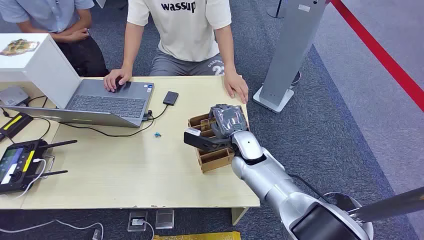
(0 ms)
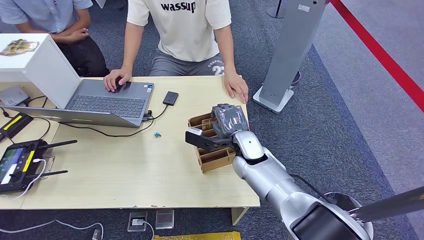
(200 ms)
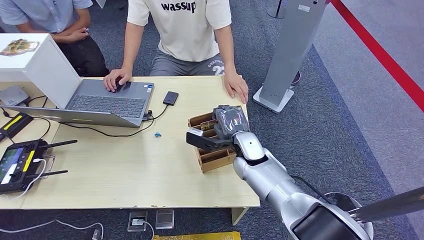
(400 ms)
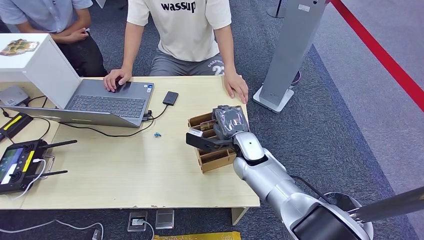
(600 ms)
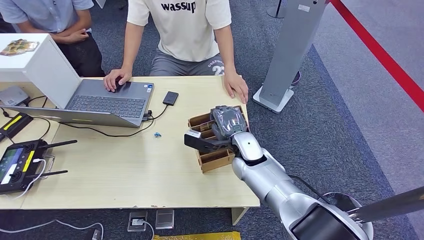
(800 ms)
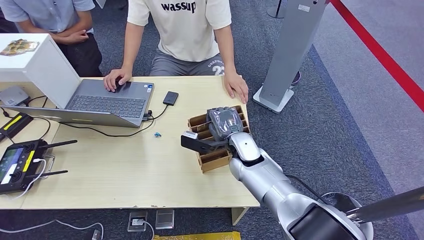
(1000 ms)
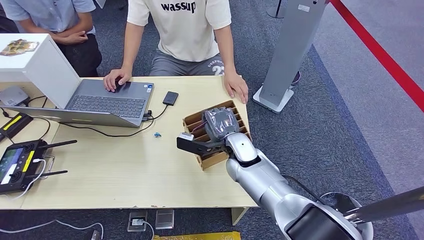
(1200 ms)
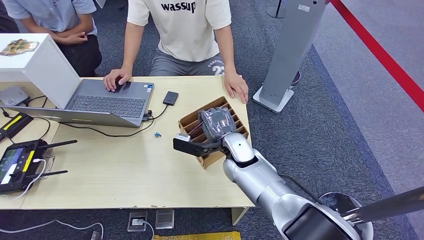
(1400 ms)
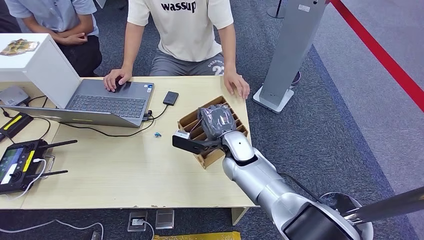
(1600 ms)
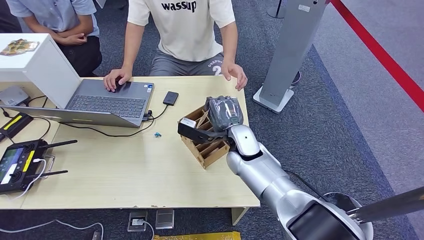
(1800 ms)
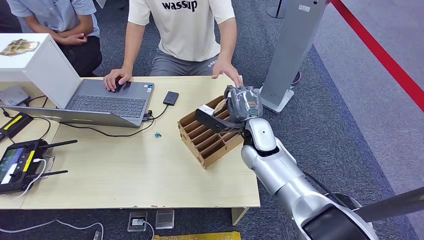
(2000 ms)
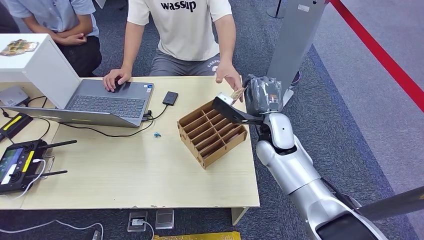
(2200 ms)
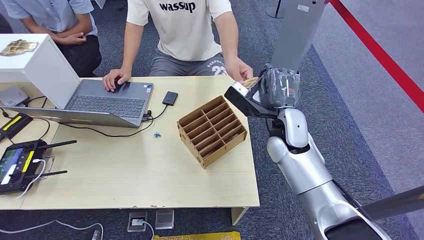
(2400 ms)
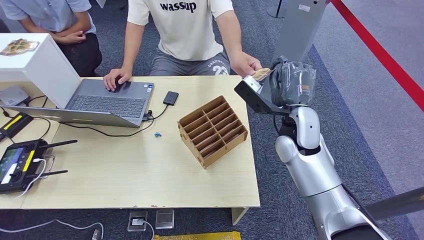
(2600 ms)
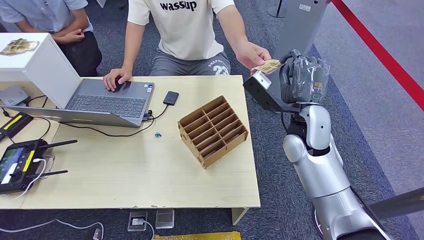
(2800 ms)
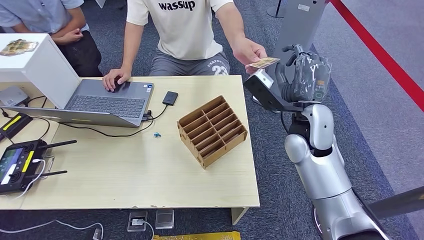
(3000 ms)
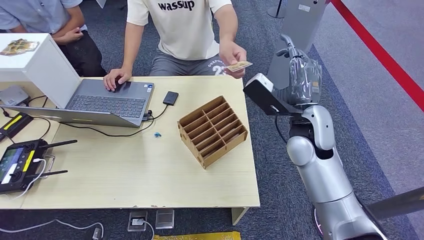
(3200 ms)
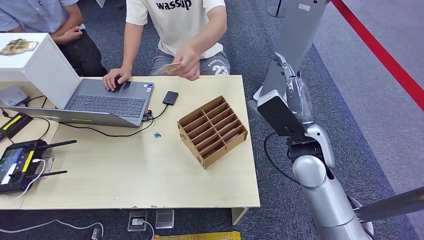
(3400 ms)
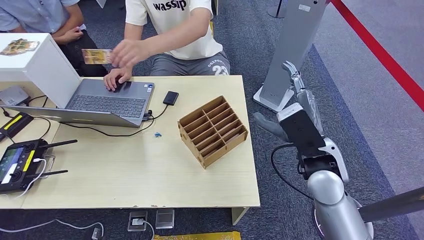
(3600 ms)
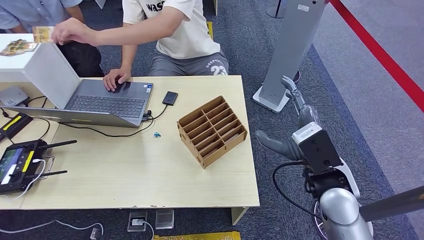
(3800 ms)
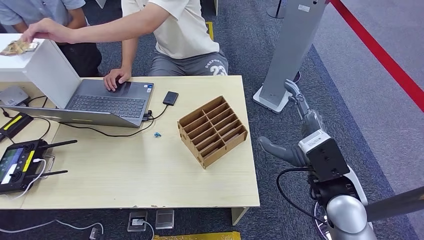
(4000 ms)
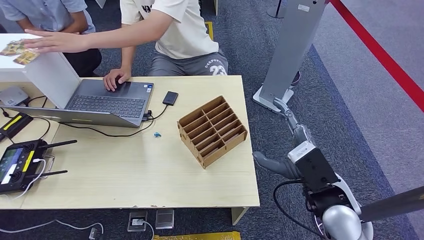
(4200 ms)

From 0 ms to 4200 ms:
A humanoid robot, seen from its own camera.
Step, from 0 ms to 2000 ms: Pick up the room card from the card holder.
Step, from 2200 ms to 4200 ms: Hand the room card to the target.
